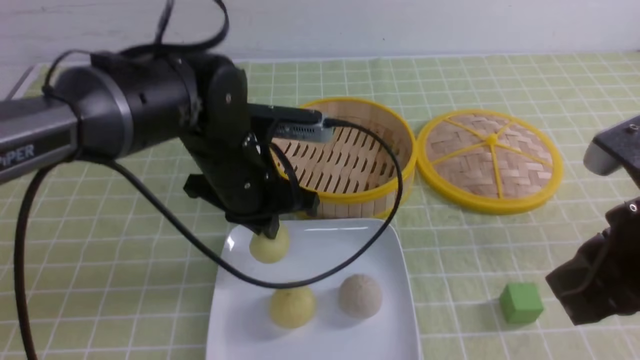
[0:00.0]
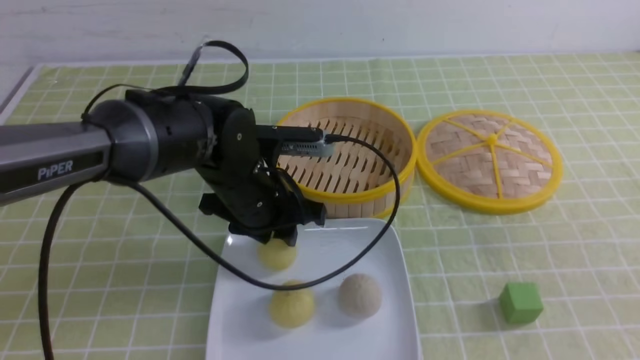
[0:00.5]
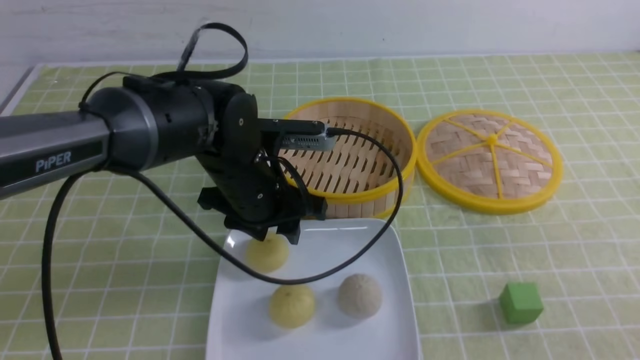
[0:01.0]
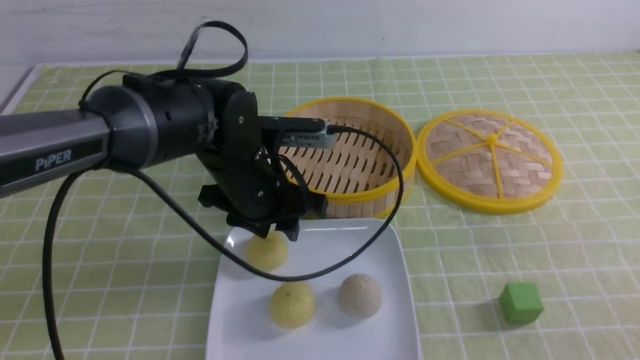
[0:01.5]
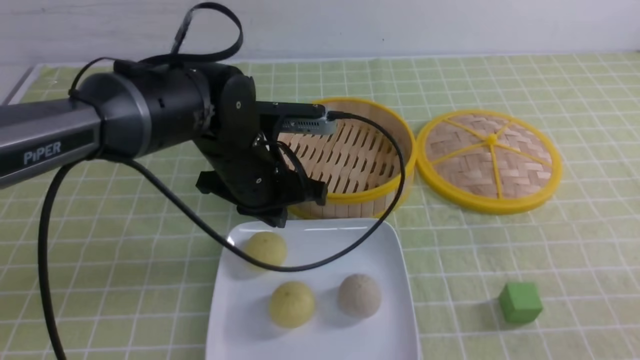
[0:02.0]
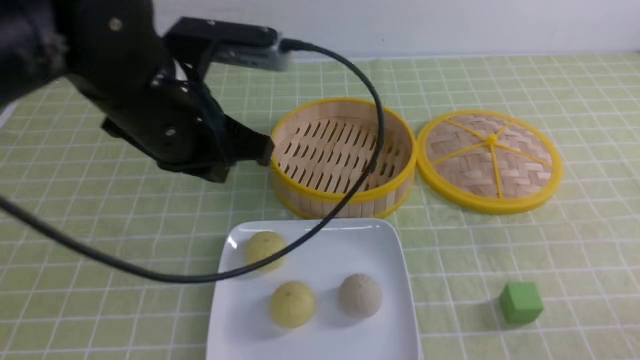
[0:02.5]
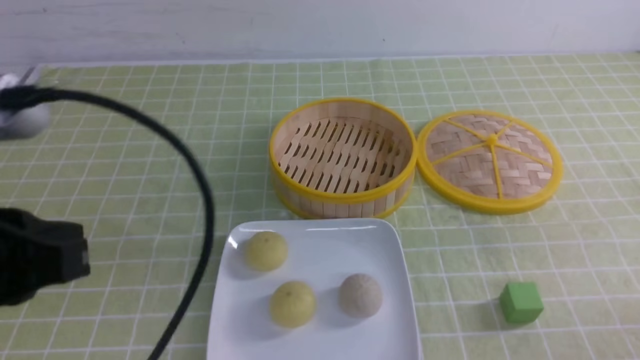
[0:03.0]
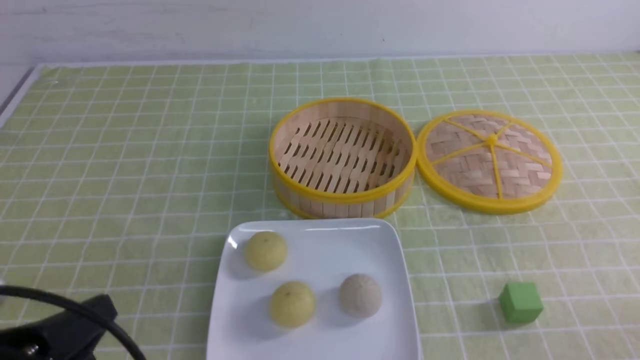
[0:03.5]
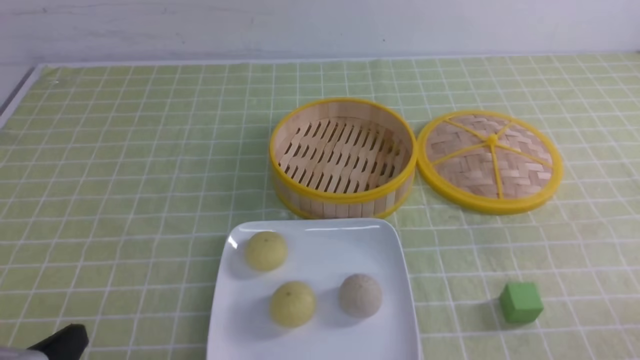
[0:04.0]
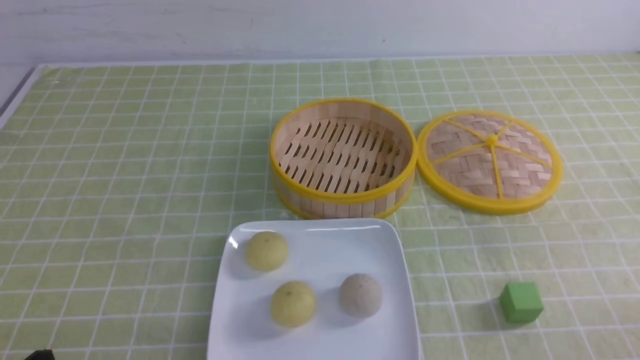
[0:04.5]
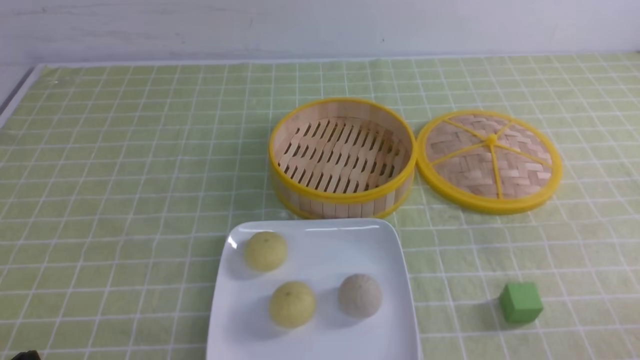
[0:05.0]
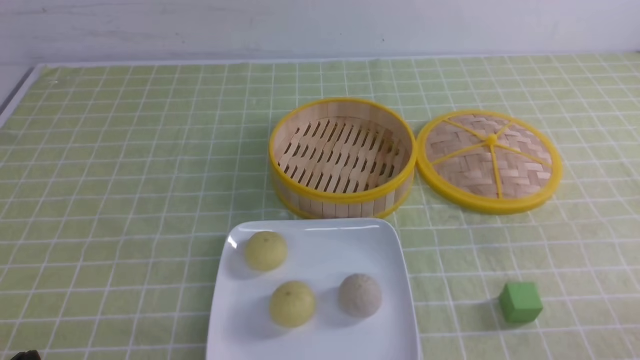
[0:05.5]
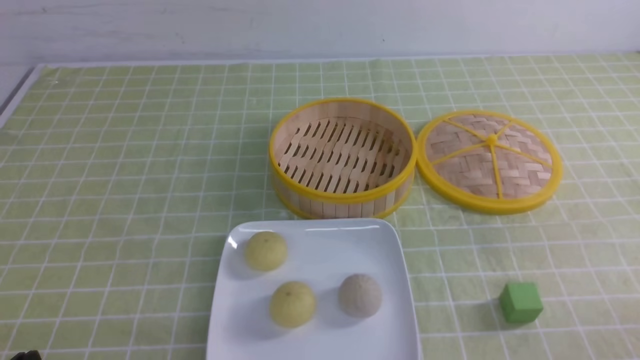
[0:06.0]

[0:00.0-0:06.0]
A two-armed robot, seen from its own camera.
0:00.0 to 0:02.0: The right gripper moves backward, downward and to the right, roughly 15 cm, while the left gripper opens and closes again.
0:02.0 to 0:04.0: The right gripper goes some 5 cm downward. The left gripper heads backward and to the left, covering approximately 30 cm.
